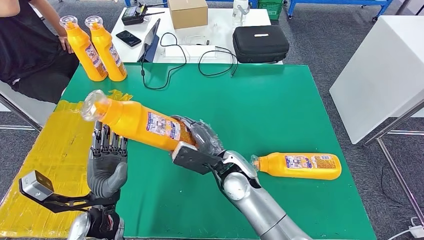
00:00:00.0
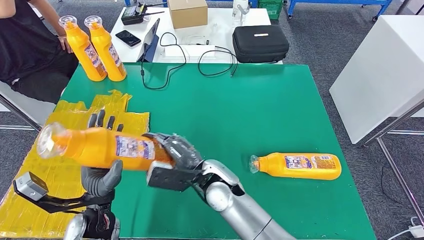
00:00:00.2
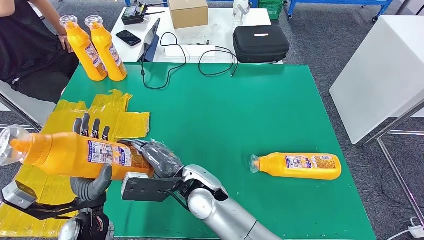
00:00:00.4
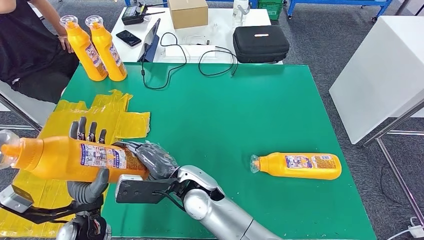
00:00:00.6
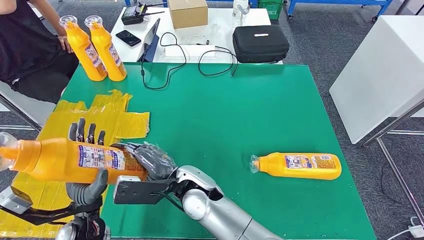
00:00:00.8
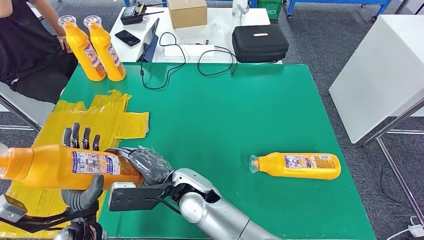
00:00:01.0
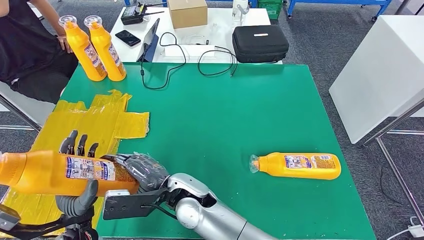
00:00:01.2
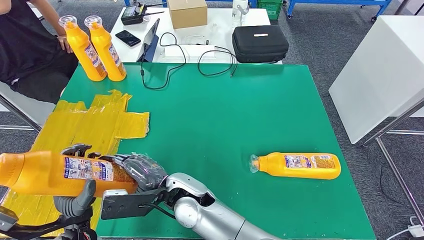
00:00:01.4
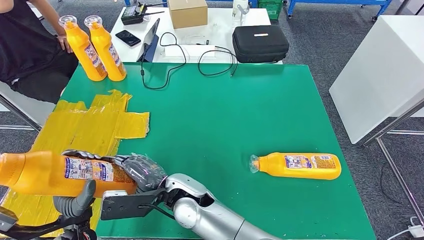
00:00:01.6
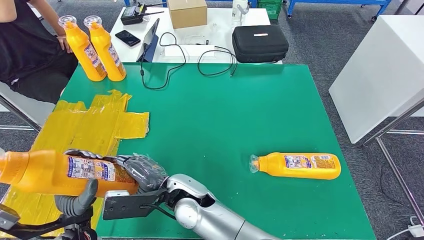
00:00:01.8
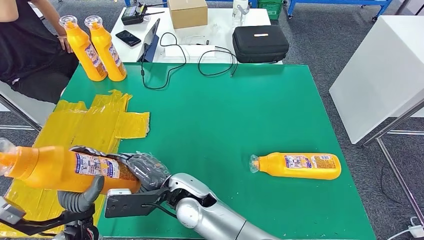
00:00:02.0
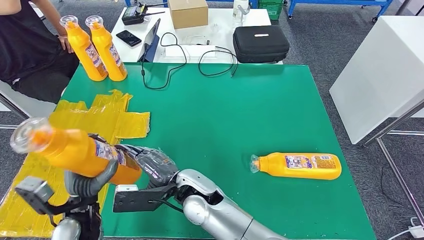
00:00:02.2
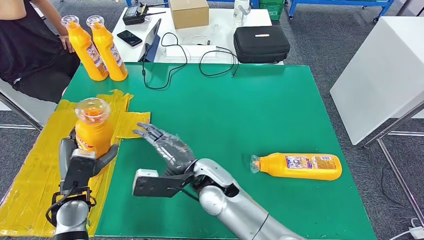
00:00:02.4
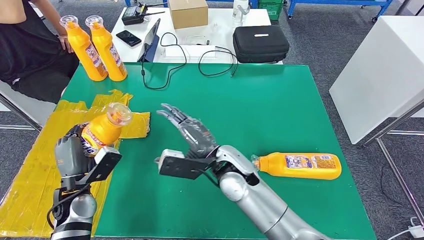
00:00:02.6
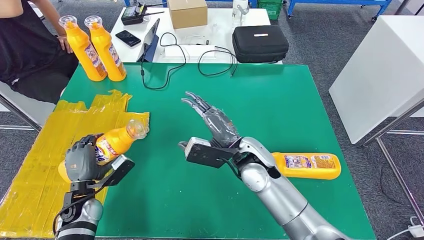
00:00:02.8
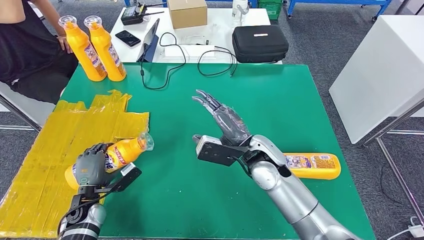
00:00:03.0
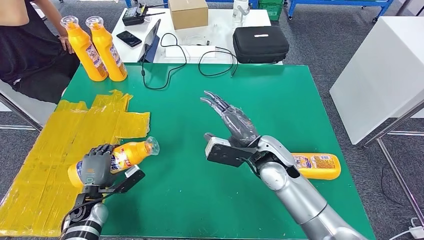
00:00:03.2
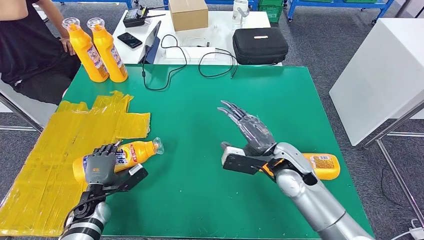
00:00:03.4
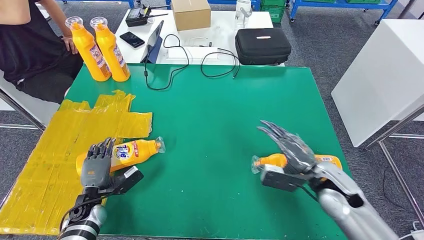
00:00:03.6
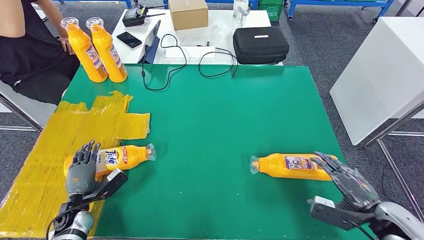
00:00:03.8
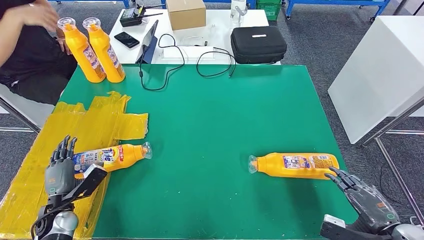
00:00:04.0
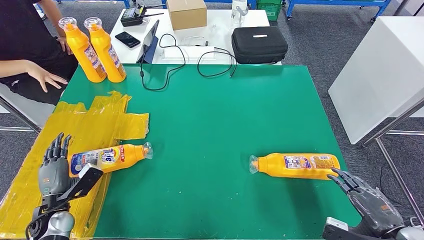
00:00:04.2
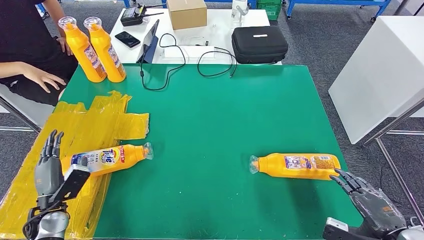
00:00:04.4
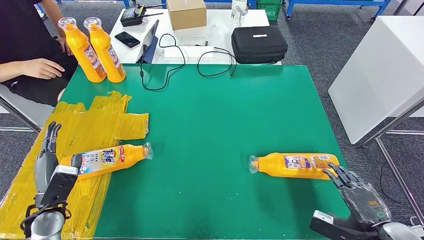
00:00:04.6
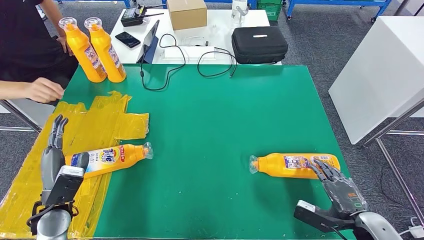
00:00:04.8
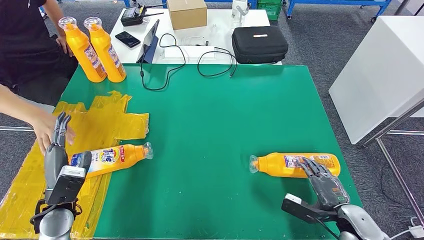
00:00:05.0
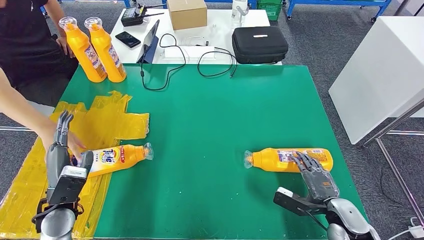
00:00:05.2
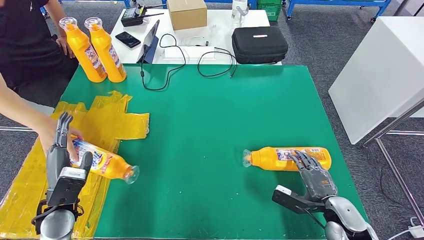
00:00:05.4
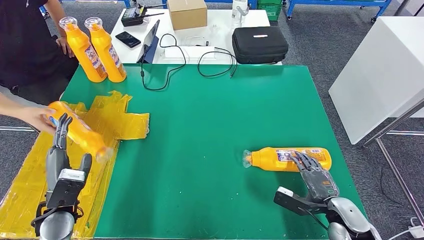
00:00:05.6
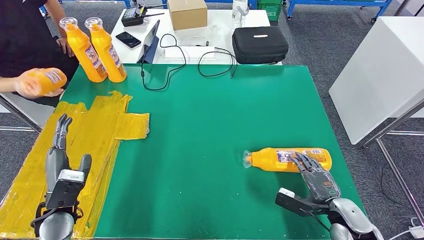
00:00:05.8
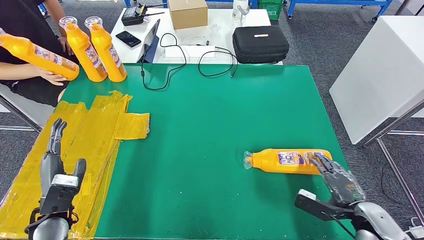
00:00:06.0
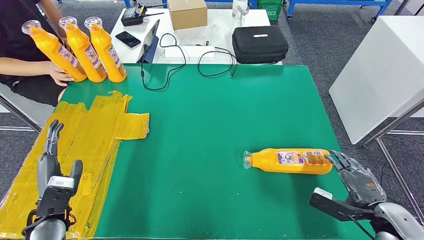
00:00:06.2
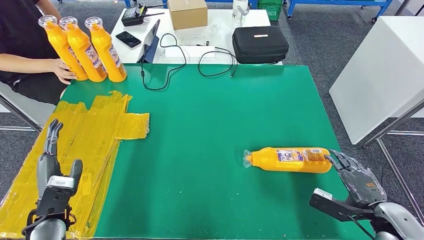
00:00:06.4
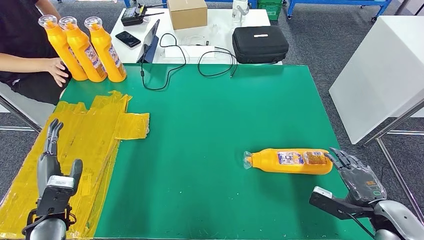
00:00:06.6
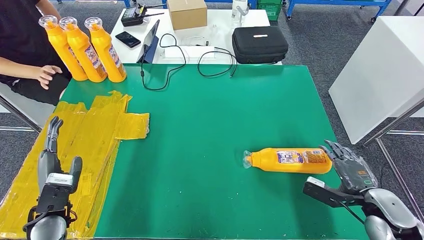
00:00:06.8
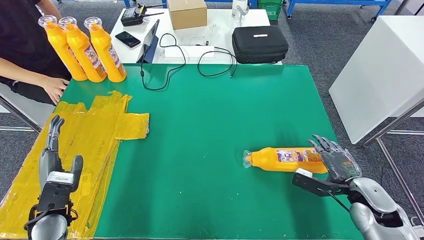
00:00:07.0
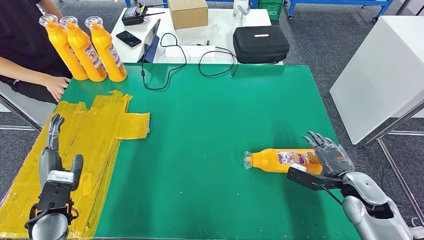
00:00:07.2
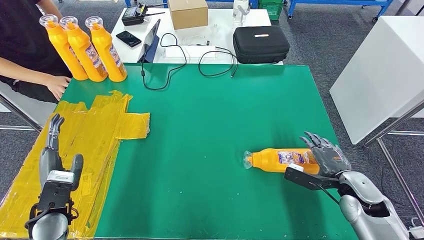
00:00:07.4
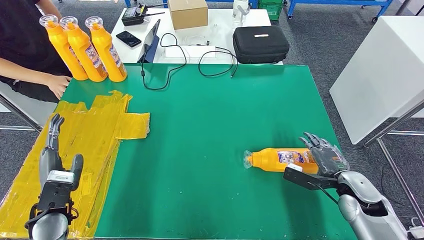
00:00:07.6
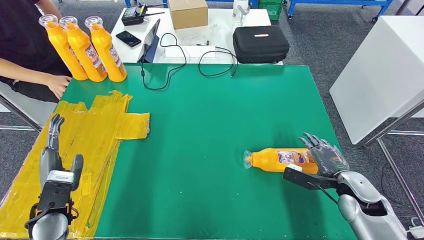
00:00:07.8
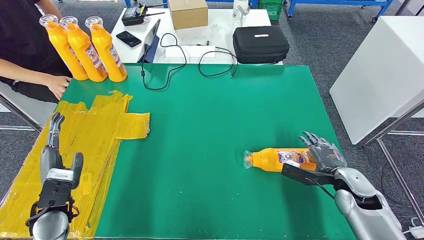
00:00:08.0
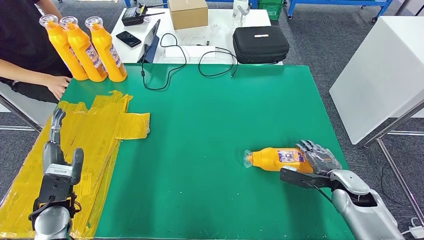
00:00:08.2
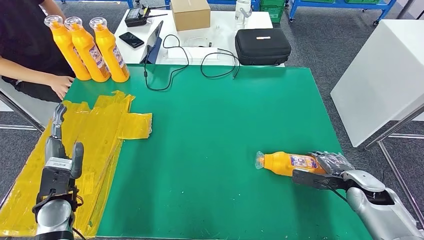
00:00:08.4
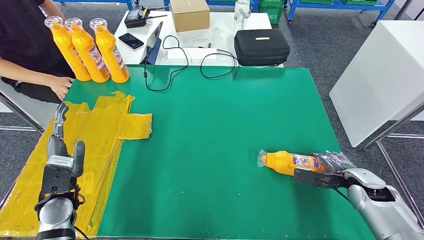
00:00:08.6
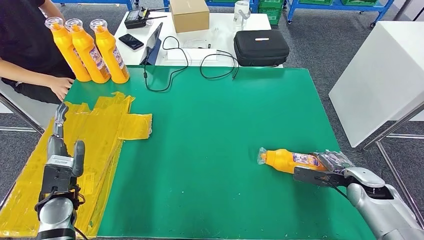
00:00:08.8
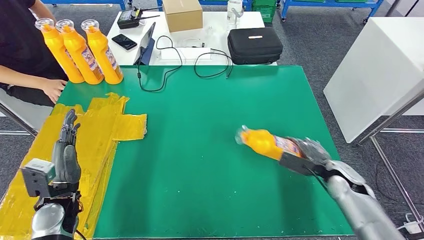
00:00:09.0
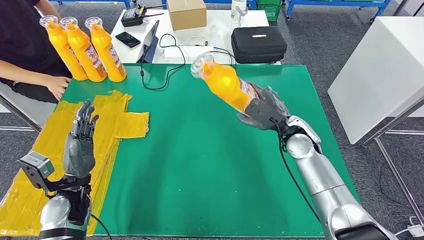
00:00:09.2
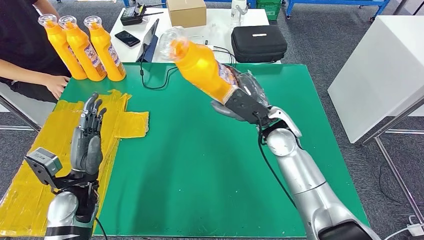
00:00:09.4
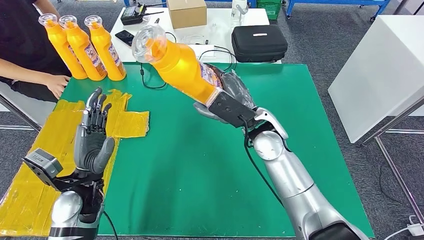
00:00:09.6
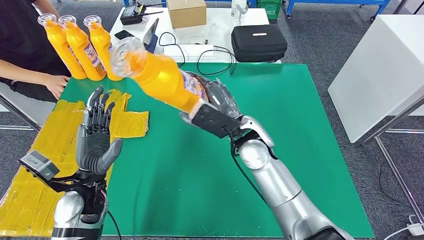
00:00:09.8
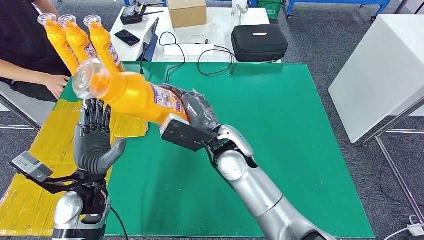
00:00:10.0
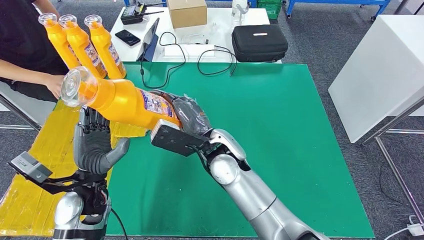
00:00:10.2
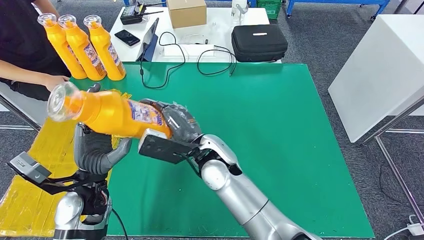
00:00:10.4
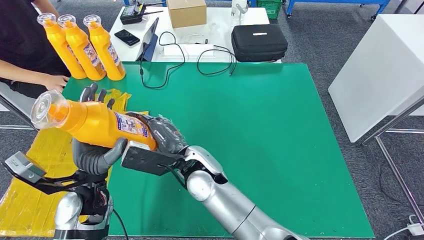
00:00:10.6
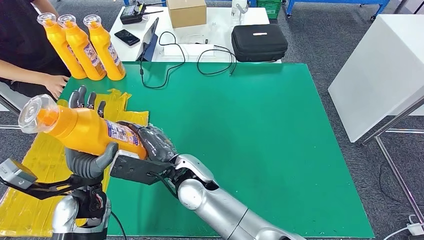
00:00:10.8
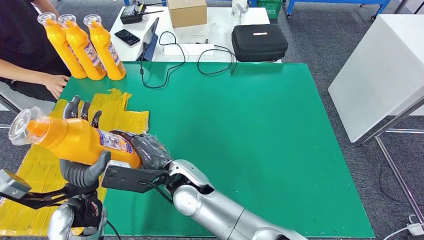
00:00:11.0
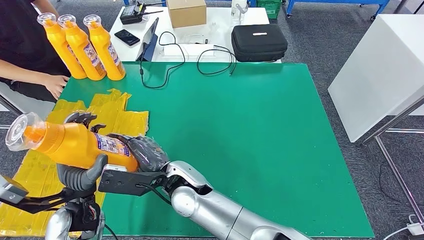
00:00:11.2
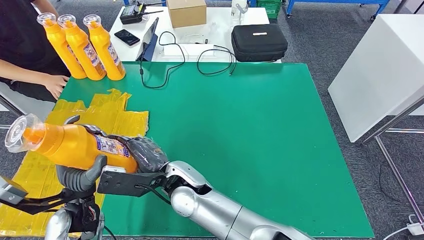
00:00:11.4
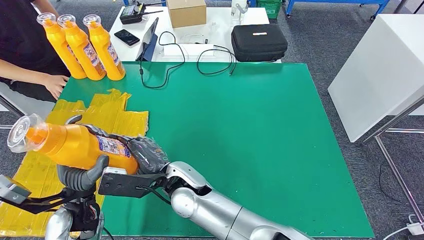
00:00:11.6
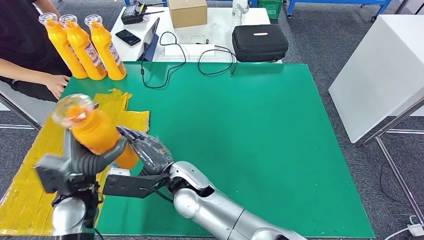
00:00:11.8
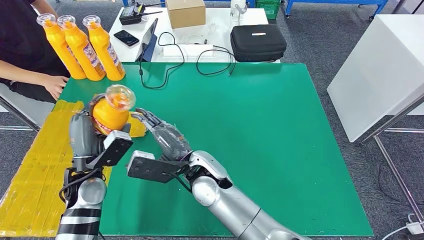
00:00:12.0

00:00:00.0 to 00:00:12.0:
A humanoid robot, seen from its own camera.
Step, 00:00:01.8 to 00:00:05.4: Flip the bottle to face forward.
Step, 00:00:05.8 to 00:00:11.6: Pick up the bottle from the table.
00:00:01.6 to 00:00:03.0: The left hand travels downward, forward and to the left by some 15 cm; the right hand heads to the right and forward, covering approximately 20 cm.
00:00:04.4 to 00:00:06.0: The right hand moves forward and downward, some 10 cm; the left hand is displaced upward and to the right by approximately 10 cm.
00:00:06.0 to 00:00:07.6: The right hand heads forward, covering approximately 10 cm.

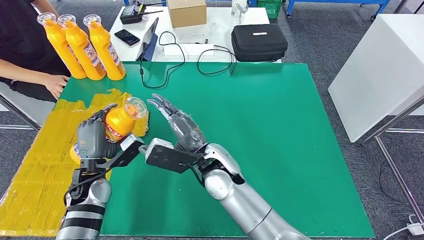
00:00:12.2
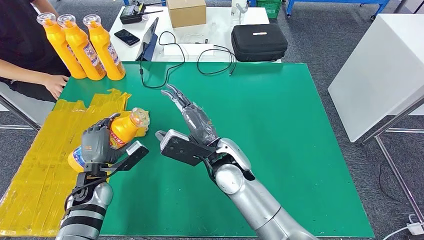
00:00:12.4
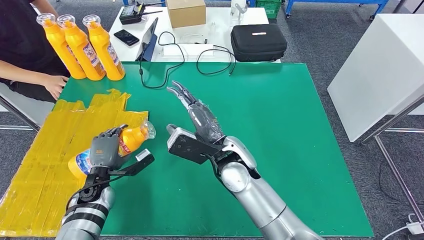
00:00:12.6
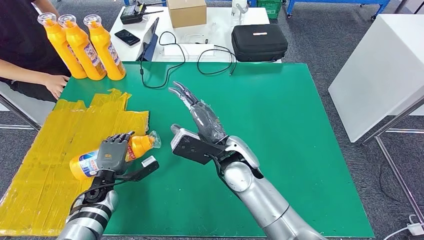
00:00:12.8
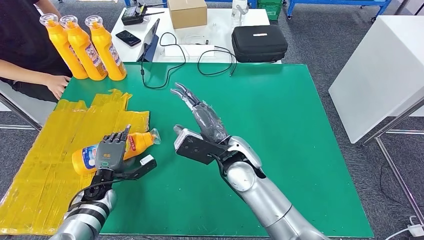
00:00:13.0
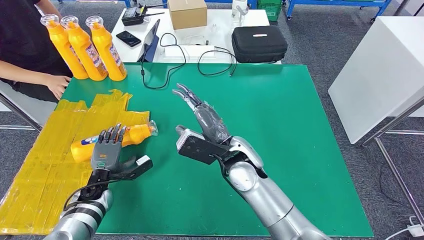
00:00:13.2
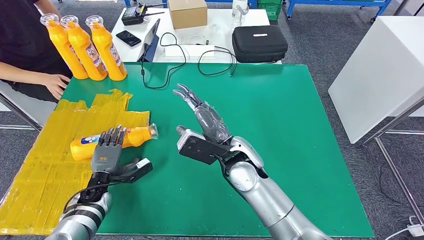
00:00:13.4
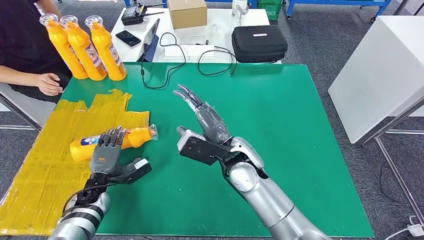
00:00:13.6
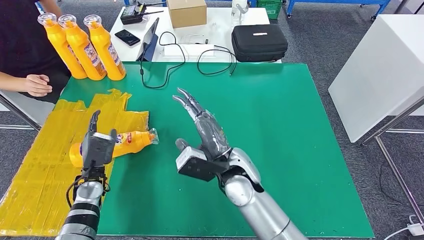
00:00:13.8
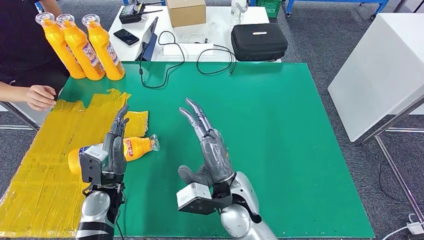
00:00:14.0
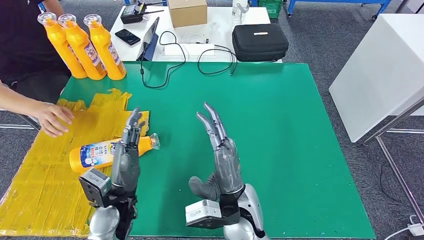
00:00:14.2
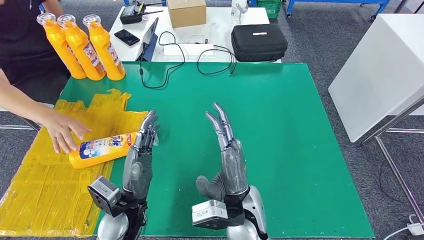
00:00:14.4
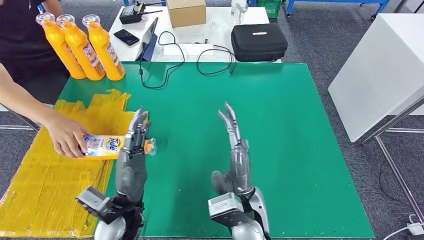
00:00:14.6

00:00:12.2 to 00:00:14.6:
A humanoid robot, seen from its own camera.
Step, 00:00:12.2 to 00:00:14.4: Flip the bottle to face forward.
